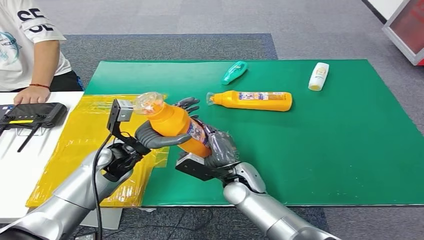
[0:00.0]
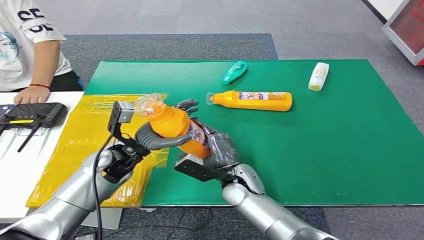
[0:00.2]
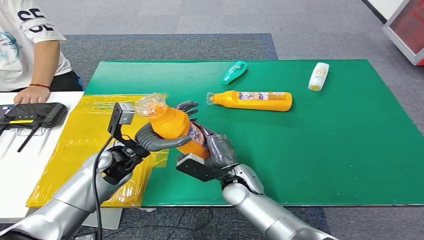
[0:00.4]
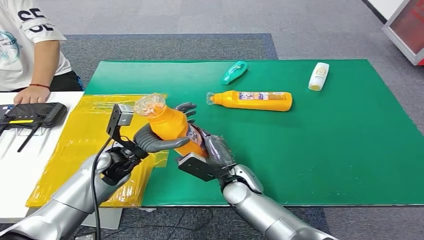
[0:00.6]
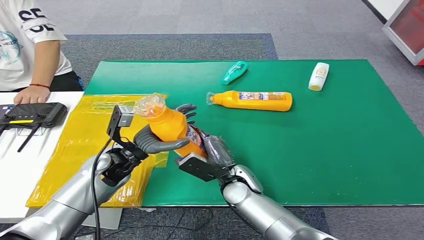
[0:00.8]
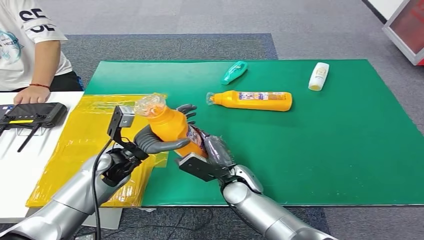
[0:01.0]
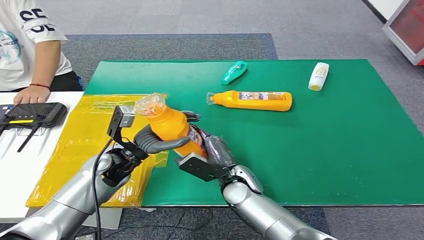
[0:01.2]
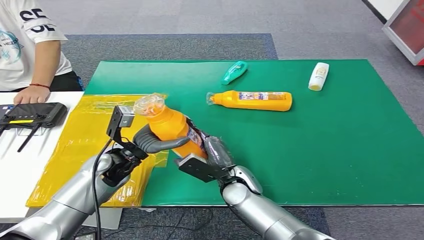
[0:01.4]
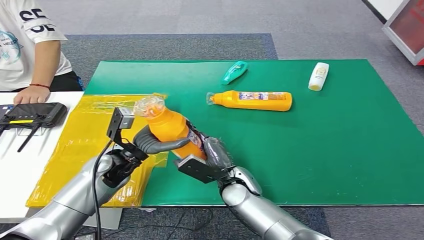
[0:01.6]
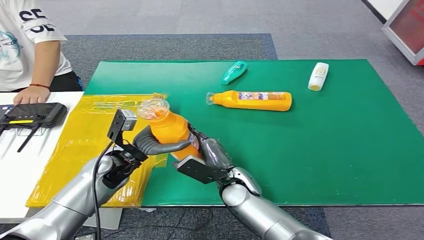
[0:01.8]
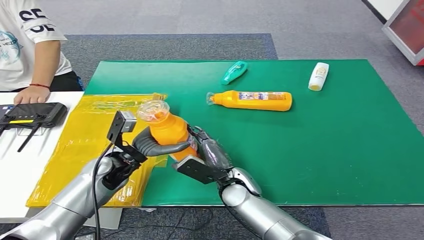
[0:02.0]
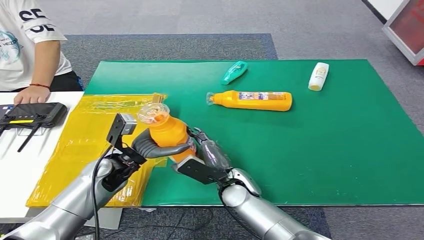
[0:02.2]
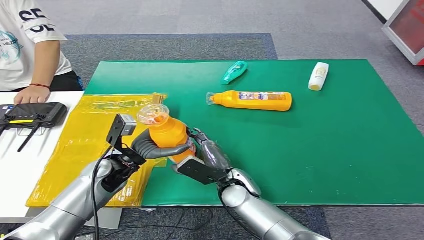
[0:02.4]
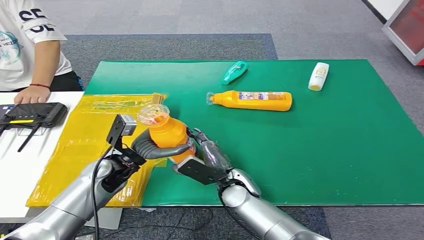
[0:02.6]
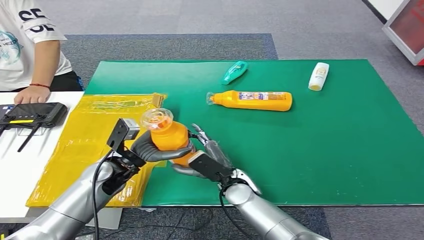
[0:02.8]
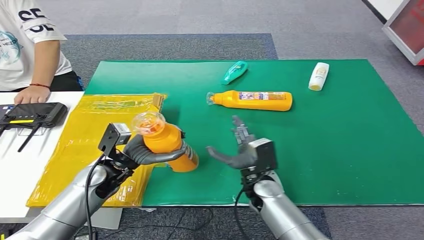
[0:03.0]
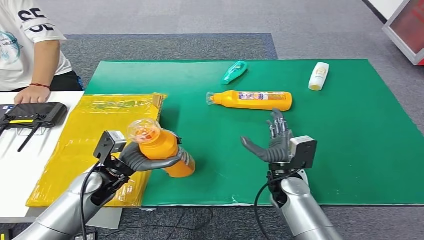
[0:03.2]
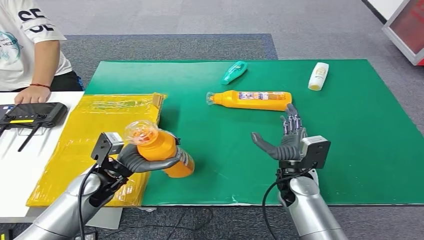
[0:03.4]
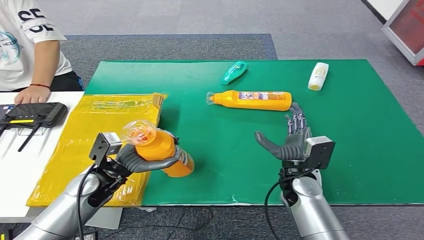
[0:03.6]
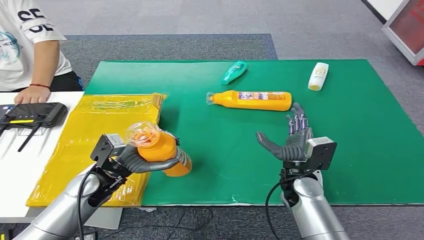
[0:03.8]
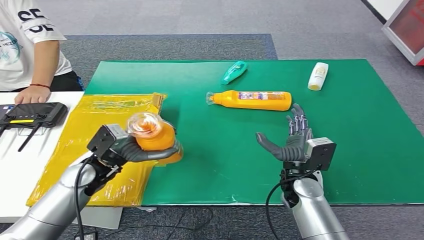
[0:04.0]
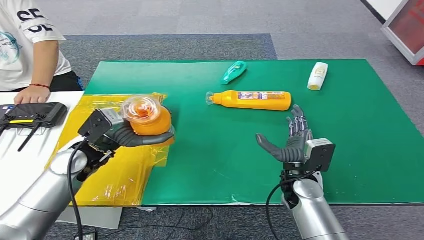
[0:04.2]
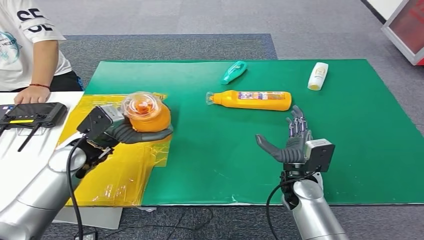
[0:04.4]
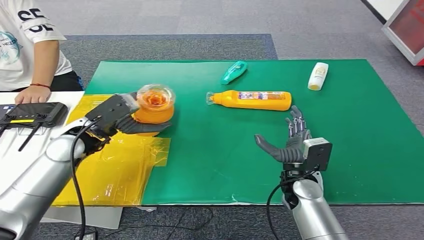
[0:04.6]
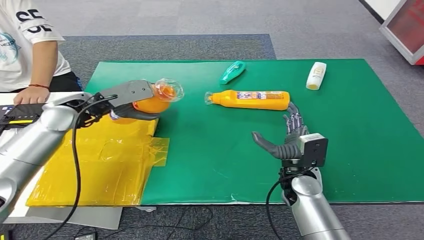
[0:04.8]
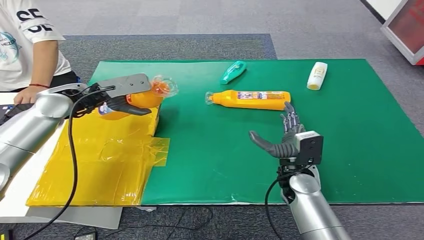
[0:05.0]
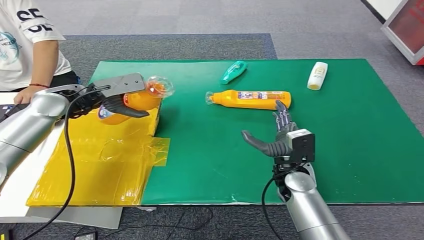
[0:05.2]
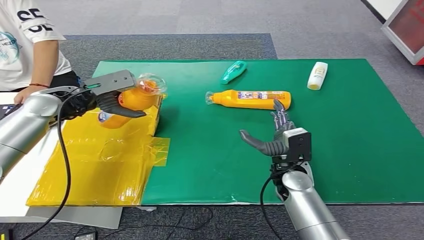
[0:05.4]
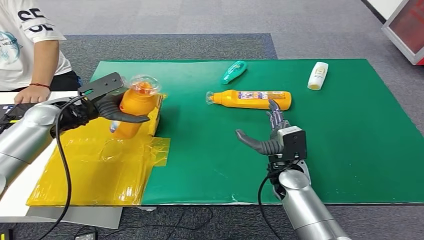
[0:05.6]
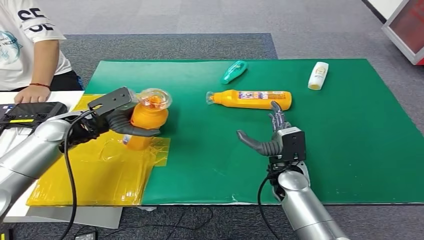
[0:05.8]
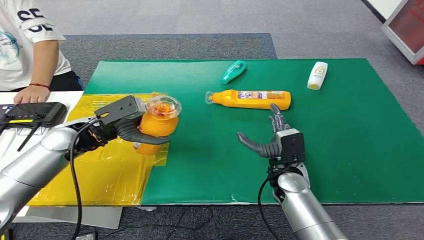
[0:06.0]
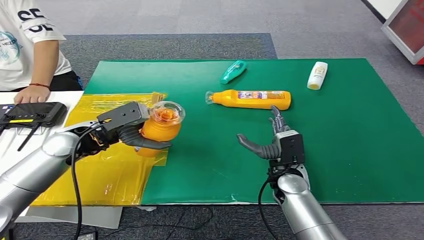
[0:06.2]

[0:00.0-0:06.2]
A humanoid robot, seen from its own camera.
Step, 0:00.0 to 0:06.2: Turn the bottle to the front side.
0:00.0 to 0:01.6: The hands make only small movements.
0:01.6 to 0:03.2: The right hand moves to the right, roughly 10 cm; the left hand shifts by some 5 cm.
0:03.2 to 0:04.6: The left hand goes about 15 cm upward and forward.
